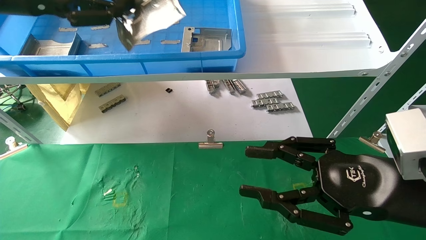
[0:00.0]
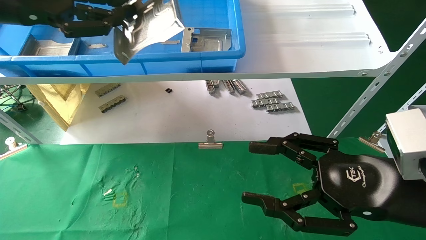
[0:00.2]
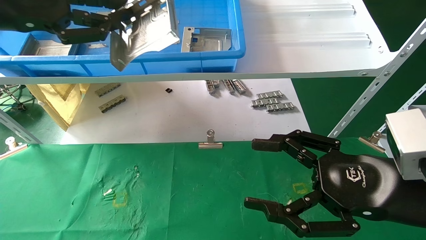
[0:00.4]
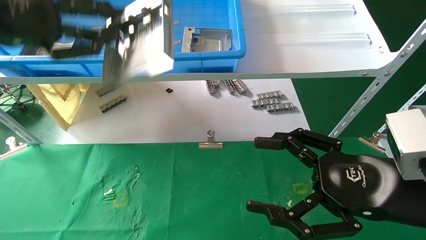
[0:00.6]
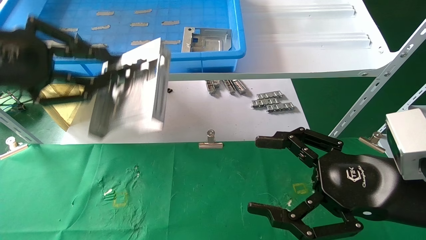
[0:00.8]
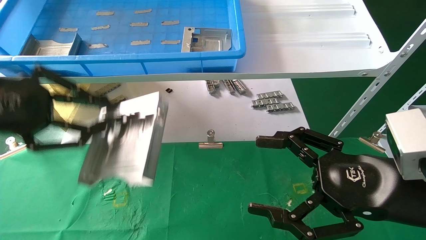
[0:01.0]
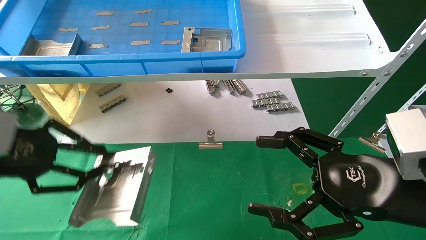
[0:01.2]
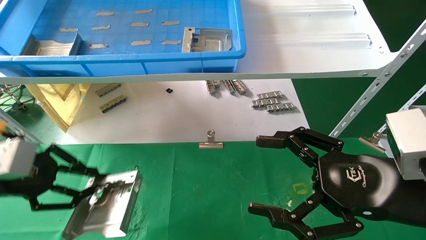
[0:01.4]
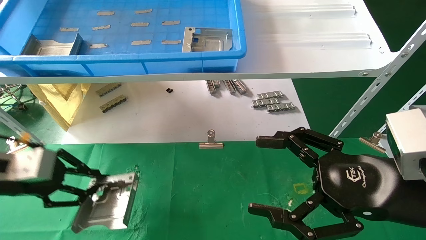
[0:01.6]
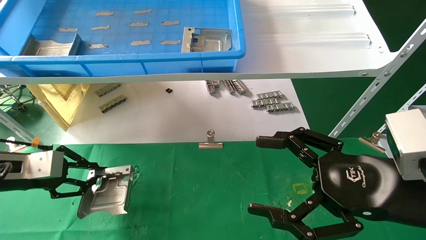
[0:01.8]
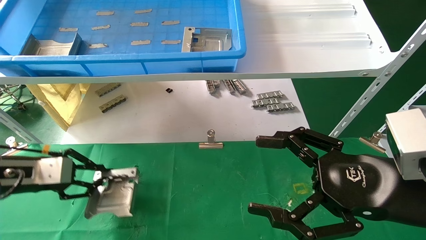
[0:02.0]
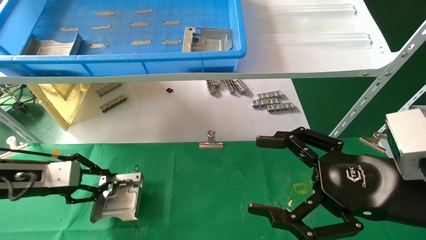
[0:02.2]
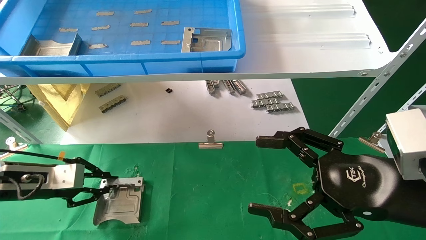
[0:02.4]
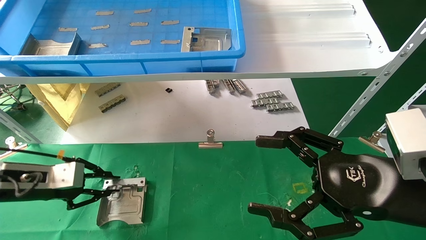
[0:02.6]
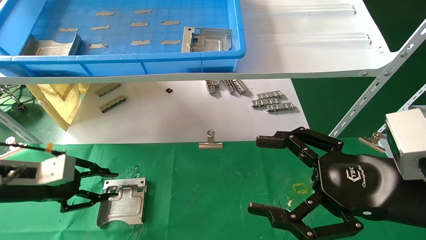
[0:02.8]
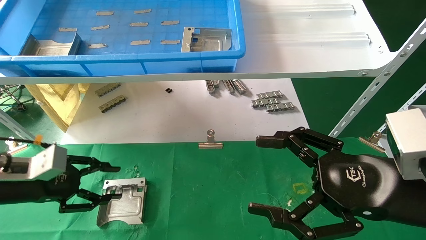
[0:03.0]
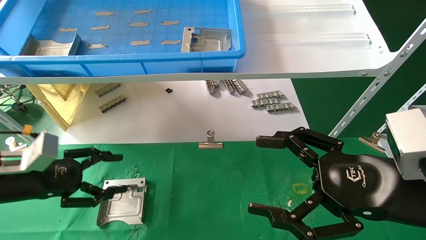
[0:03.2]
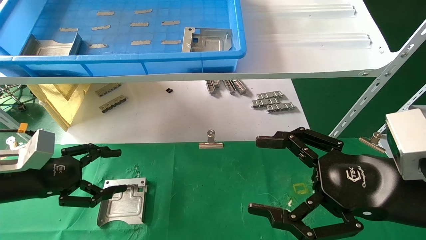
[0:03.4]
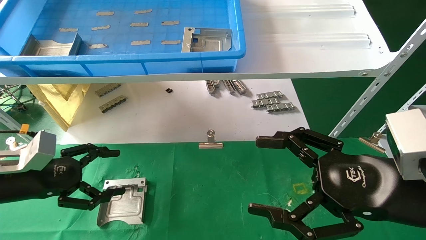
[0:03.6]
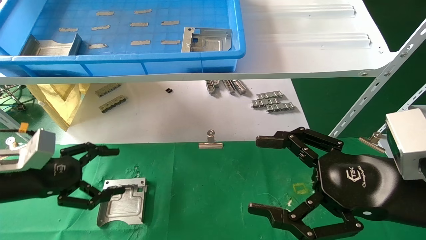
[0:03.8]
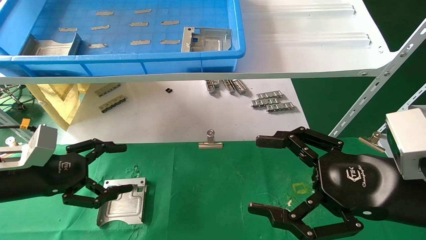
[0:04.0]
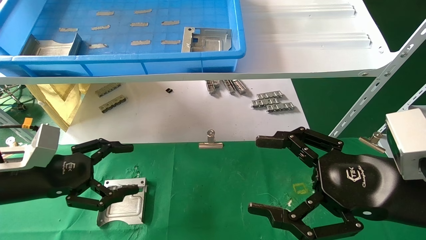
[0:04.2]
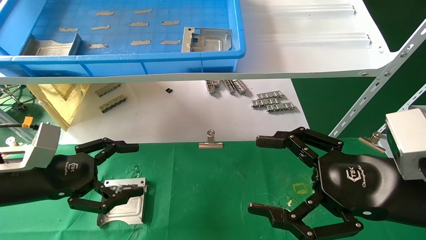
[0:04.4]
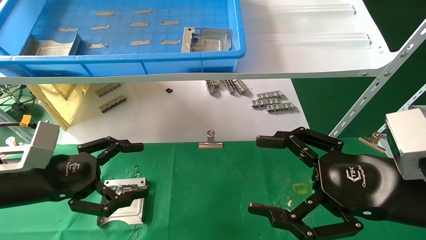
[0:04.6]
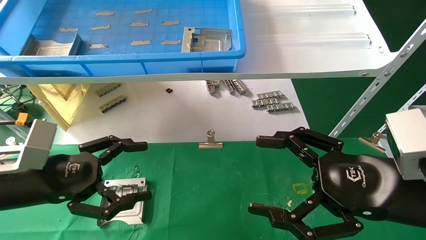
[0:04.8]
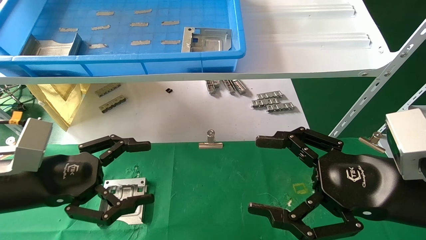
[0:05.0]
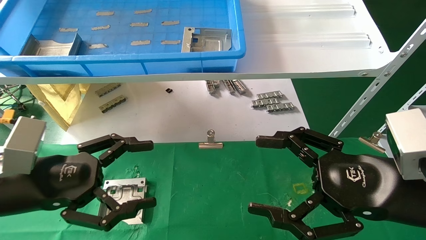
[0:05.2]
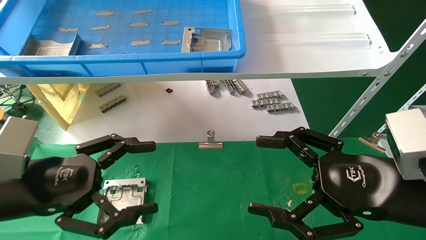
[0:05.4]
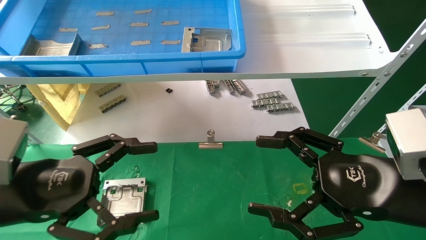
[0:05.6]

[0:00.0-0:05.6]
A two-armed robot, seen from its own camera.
Task of the whole recording: use the mechanical arm to pick up the parts and place them on the table.
Step, 0:00.0 to 0:02.8: Place the hard drive bracket into the box.
0:00.0 to 0:01.4: The left gripper moves downward, roughly 20 cm. Meanwhile the right gripper opens its fingers.
0:01.4 to 0:02.8: The left gripper shifts about 10 cm downward and forward.
0:02.8 to 0:04.2: The left gripper moves approximately 5 cm, and opens.
0:04.2 to 0:05.6: The left gripper shifts about 10 cm backward and to the right.

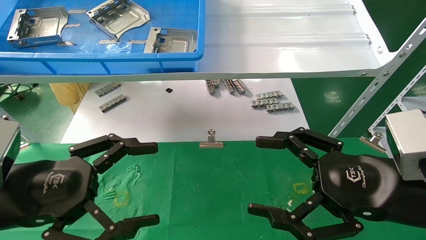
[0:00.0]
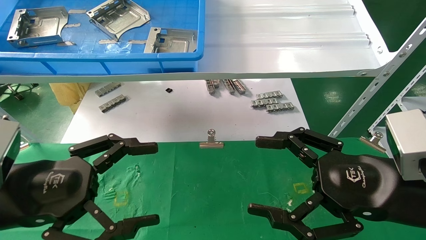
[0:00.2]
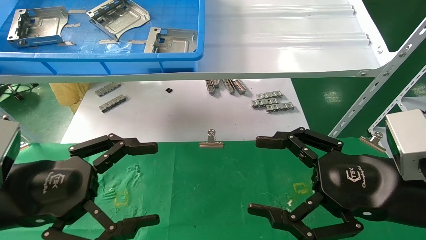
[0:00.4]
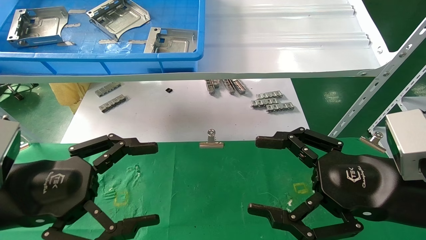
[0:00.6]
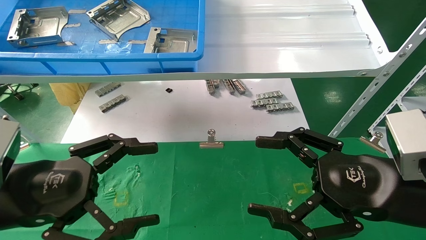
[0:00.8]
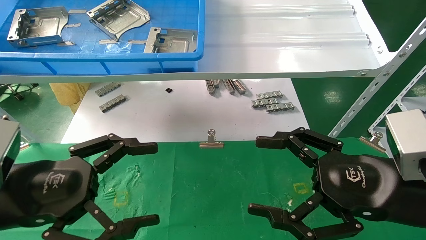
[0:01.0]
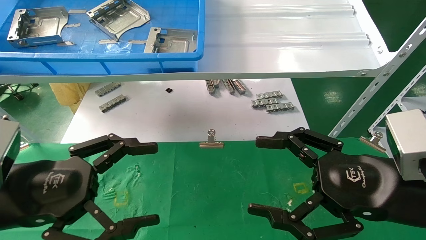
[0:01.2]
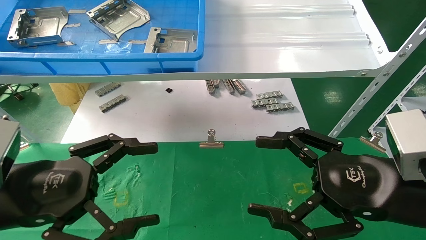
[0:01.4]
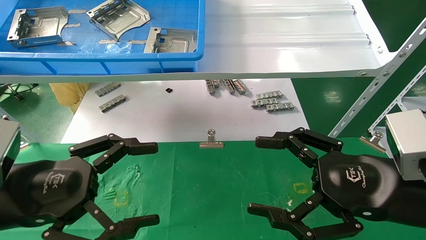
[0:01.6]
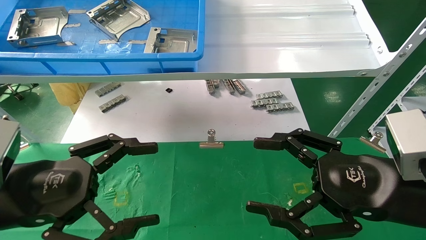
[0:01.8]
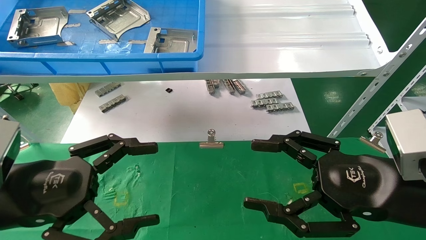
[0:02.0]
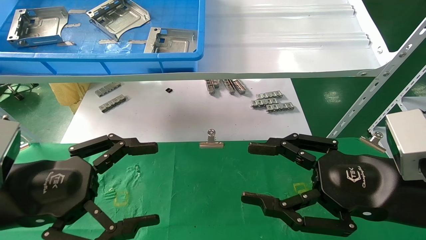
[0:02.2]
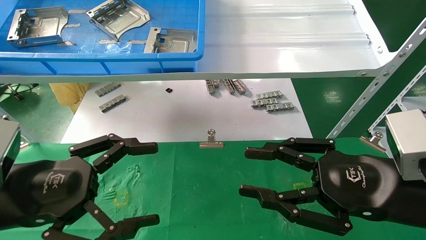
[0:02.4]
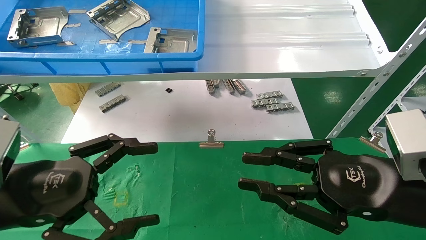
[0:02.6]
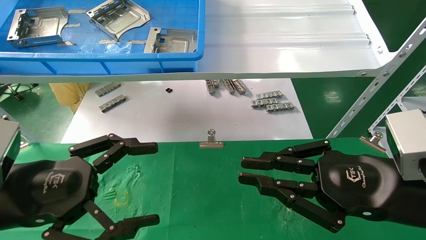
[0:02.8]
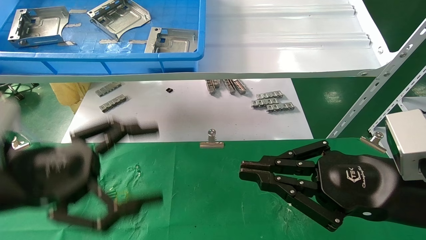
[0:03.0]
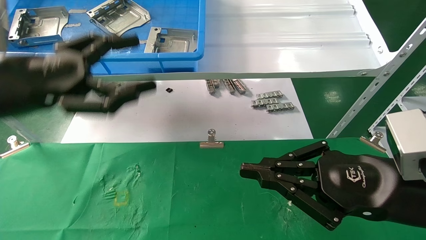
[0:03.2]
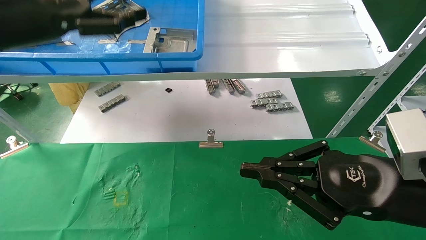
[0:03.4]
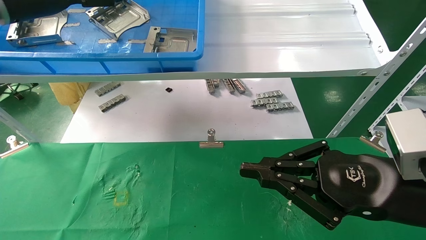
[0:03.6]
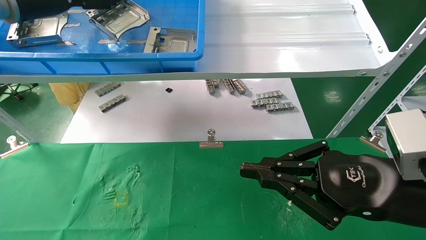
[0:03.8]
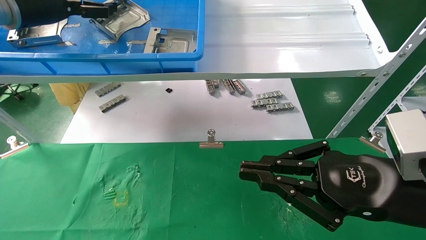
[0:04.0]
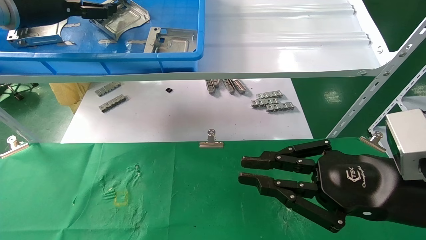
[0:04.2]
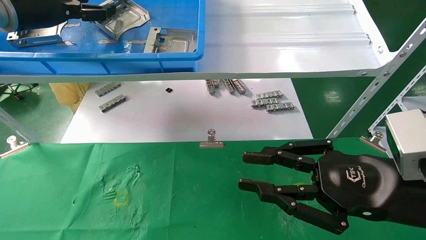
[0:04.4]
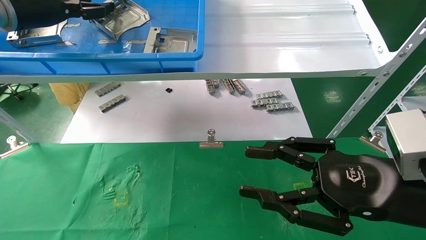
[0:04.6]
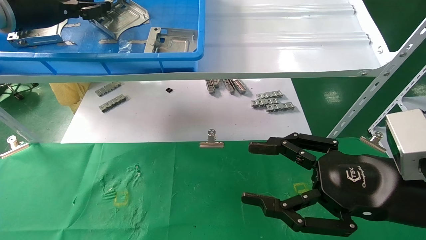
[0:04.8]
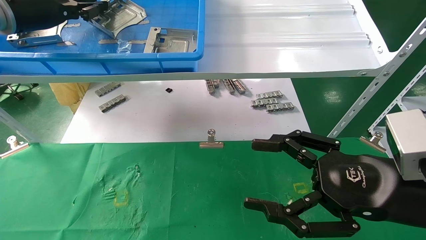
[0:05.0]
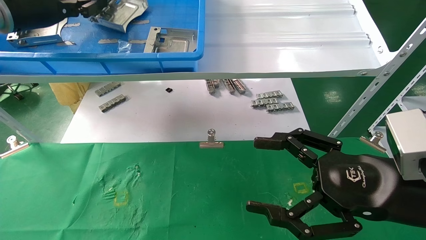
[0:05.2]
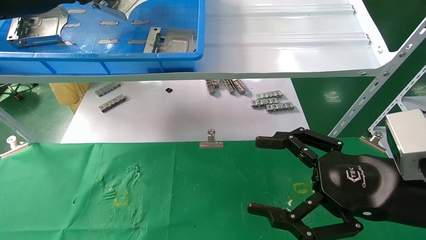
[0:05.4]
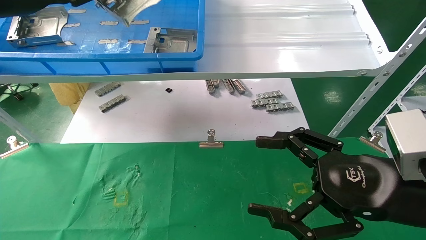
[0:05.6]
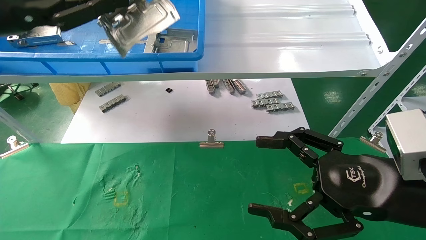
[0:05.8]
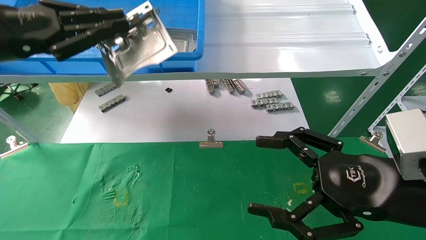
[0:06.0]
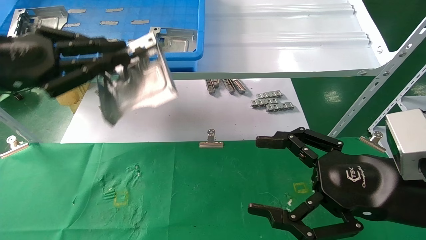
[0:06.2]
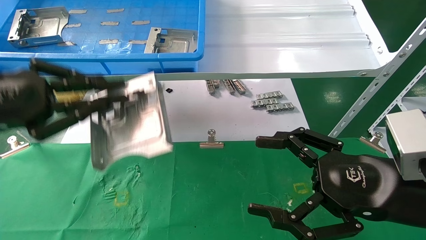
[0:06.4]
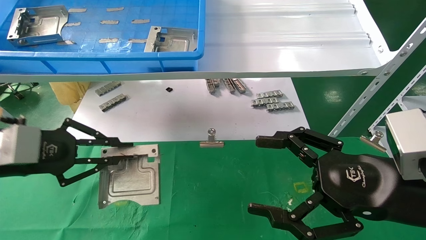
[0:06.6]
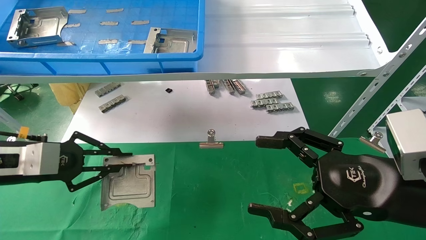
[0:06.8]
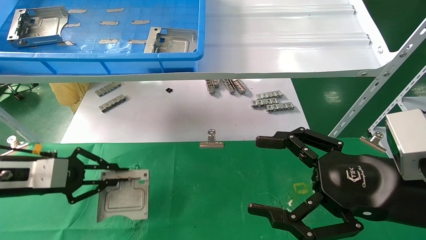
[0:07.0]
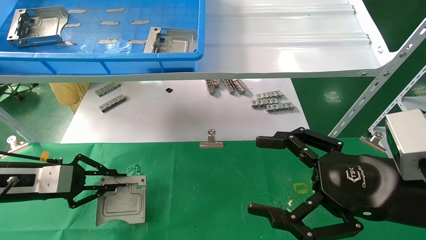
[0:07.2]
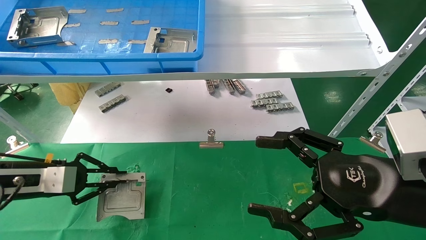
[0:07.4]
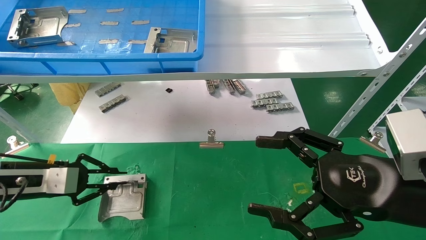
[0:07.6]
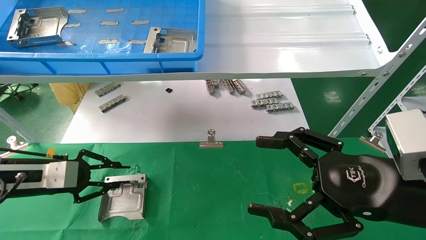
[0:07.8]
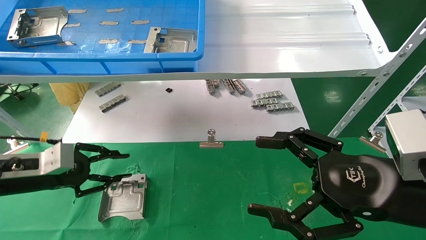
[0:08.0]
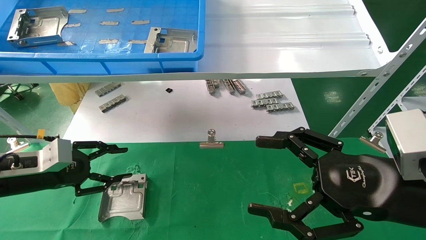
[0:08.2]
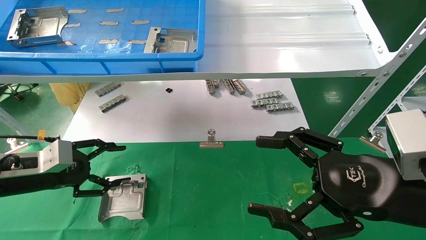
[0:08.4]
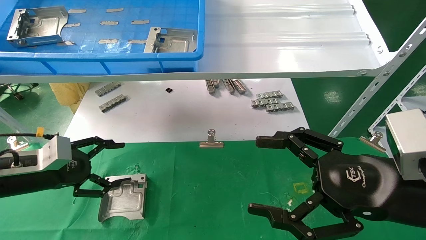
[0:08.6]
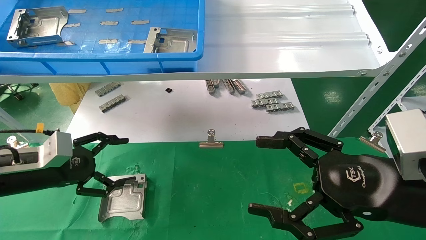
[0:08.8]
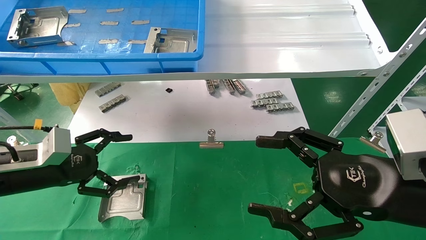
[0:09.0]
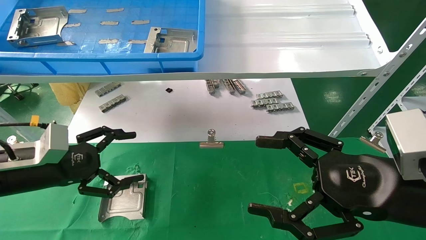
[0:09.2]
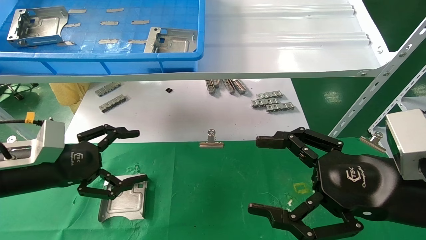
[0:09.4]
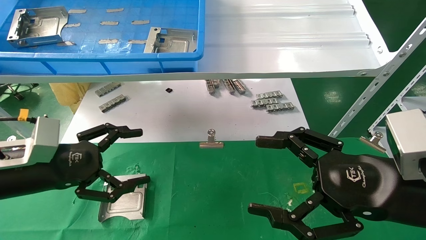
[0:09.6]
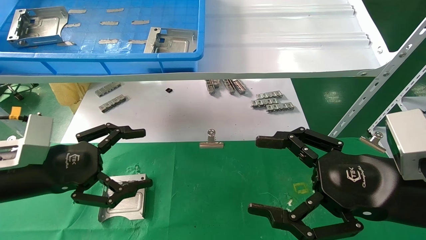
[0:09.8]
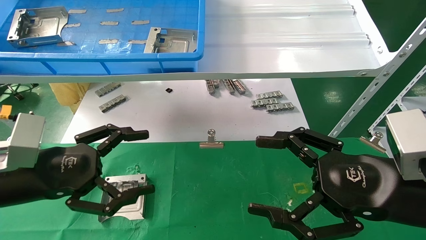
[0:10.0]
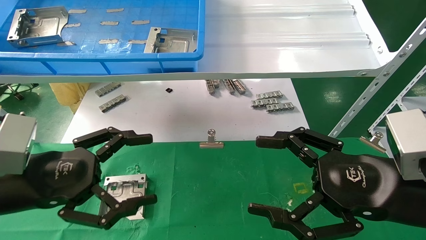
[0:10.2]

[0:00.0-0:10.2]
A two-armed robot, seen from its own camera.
Task of the whole recording: use the mechanical arm to pick up the parts and place them on the table.
Step, 0:03.4 to 0:05.0: Pick up the hard drive bracket from the feeding area.
Step, 0:05.2 to 0:07.6: Place the hard drive bracket into the box.
0:00.0 to 0:01.4: Both grippers stay about where they are.
0:01.4 to 0:03.0: The right gripper closes. The left gripper heads upward, covering some 5 cm.
0:03.0 to 0:04.4: The left gripper travels forward and upward by approximately 25 cm.
0:04.4 to 0:05.8: The left gripper travels backward by approximately 10 cm, and closes its fingers, while the right gripper opens.
0:05.8 to 0:07.2: The left gripper is displaced downward by some 25 cm.
0:07.2 to 0:08.8: The left gripper opens up.
0:08.8 to 0:10.2: The left gripper goes roughly 10 cm backward and to the right.

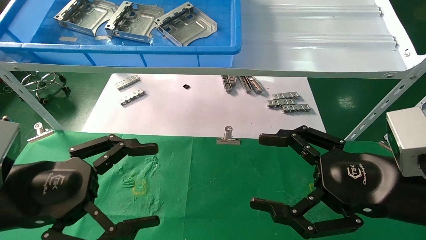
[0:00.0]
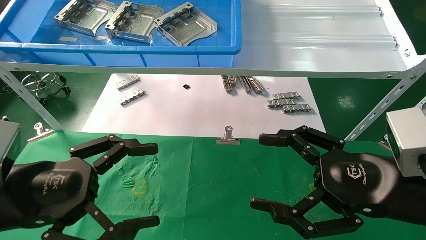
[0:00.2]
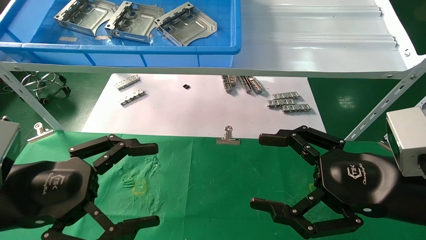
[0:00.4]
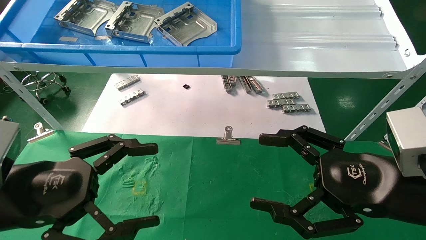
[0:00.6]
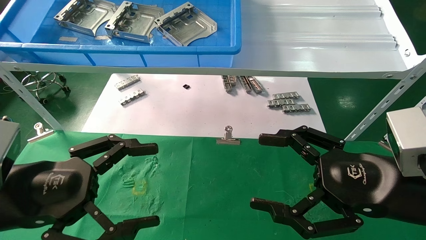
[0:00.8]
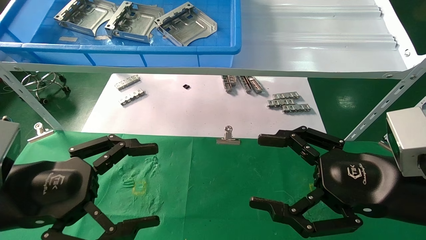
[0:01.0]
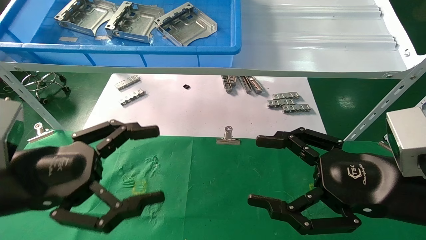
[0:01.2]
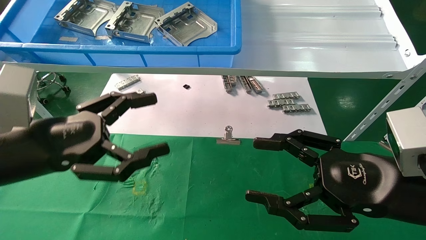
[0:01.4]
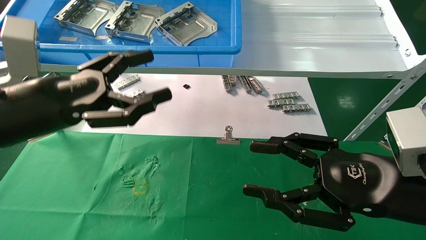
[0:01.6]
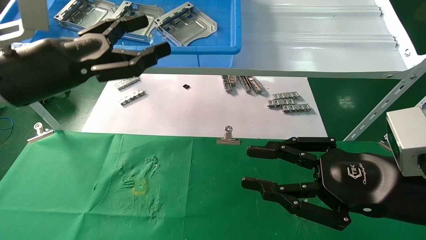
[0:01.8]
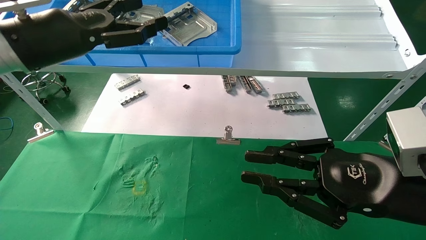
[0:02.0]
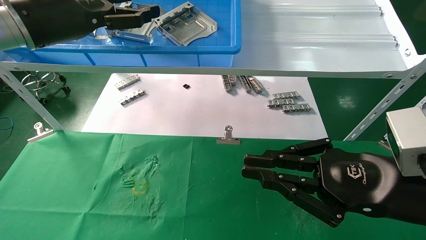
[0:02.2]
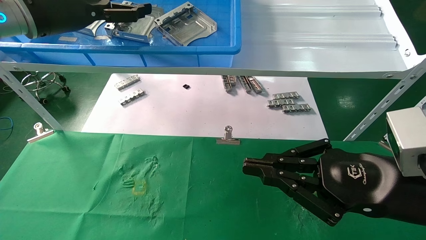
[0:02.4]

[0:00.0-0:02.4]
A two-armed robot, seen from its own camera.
Task of the whole recording: use the mechanical arm to pick up the parts and place them on the table.
0:00.0 to 0:01.2: The grippers stay close to where they were, moving slightly.
0:01.2 to 0:02.4: The right gripper closes, while the left gripper travels upward and forward by about 25 cm.
